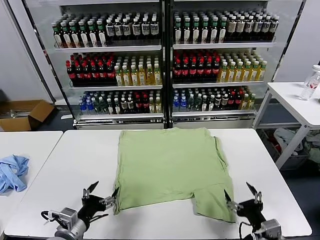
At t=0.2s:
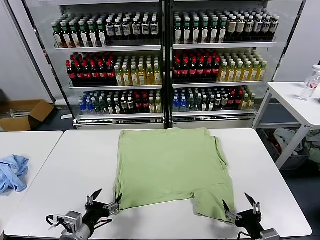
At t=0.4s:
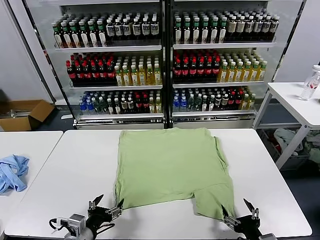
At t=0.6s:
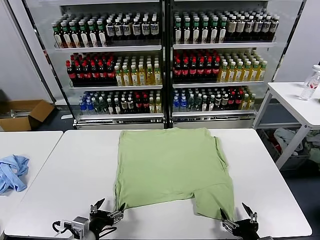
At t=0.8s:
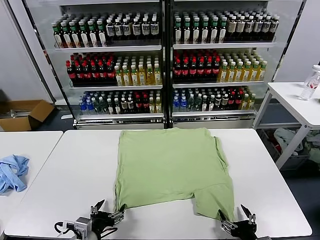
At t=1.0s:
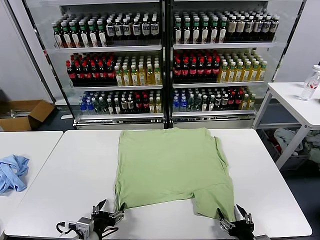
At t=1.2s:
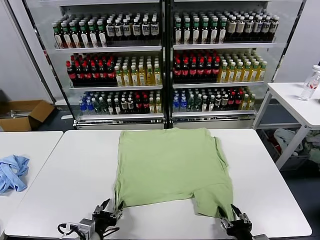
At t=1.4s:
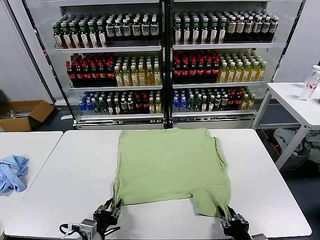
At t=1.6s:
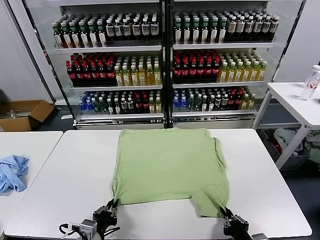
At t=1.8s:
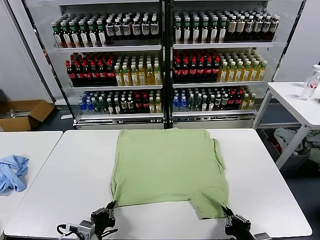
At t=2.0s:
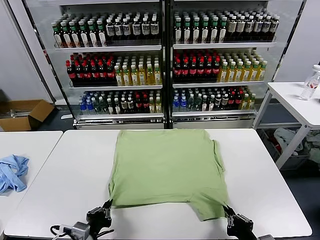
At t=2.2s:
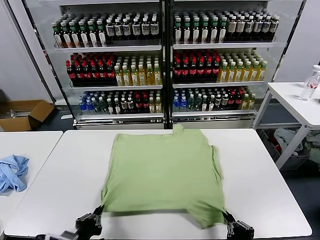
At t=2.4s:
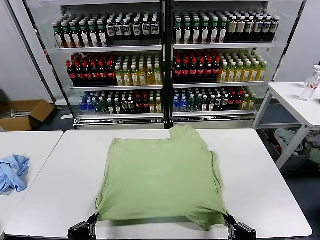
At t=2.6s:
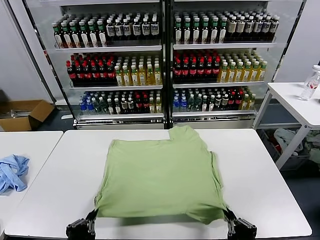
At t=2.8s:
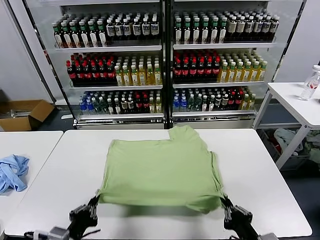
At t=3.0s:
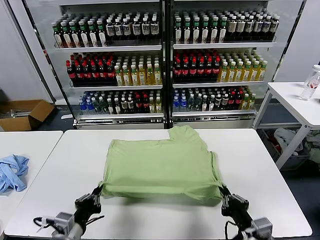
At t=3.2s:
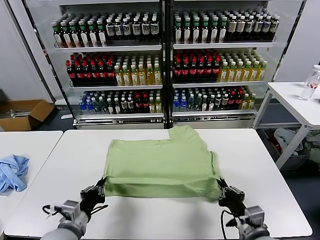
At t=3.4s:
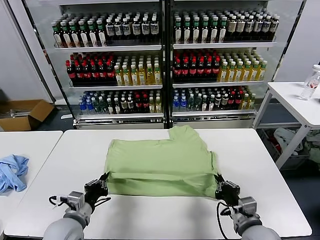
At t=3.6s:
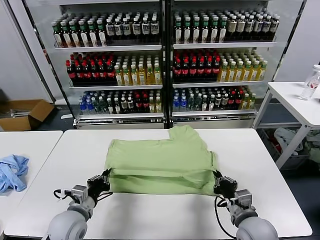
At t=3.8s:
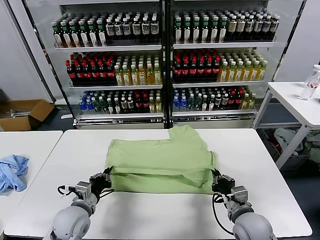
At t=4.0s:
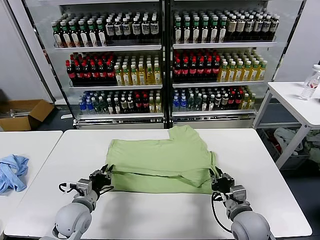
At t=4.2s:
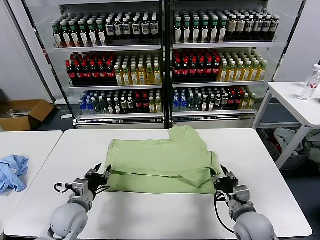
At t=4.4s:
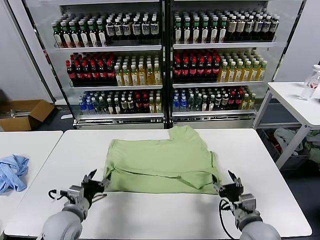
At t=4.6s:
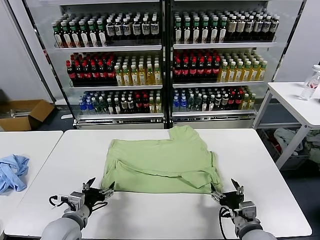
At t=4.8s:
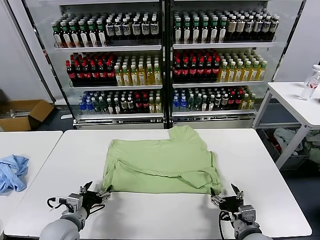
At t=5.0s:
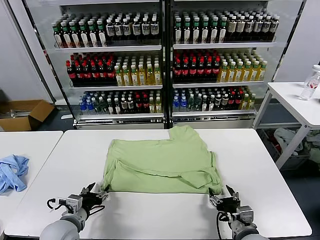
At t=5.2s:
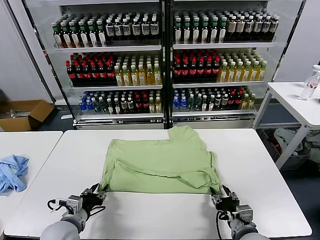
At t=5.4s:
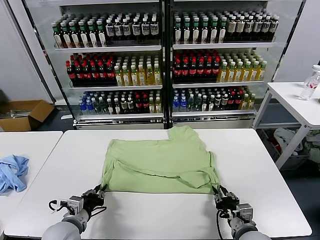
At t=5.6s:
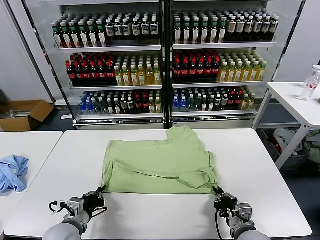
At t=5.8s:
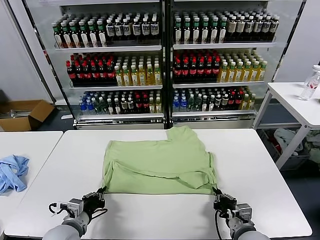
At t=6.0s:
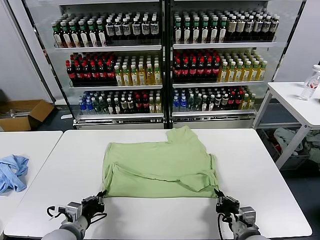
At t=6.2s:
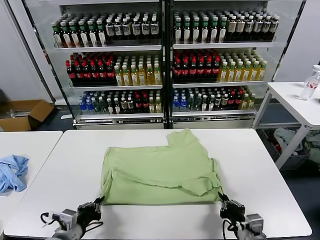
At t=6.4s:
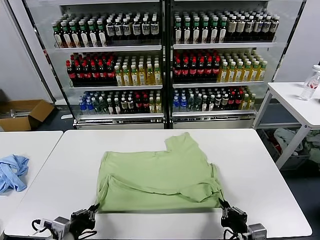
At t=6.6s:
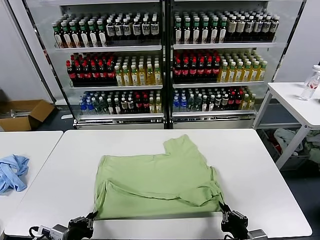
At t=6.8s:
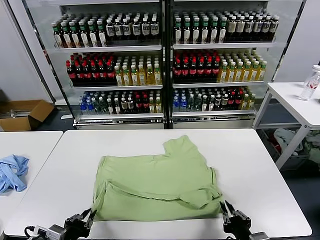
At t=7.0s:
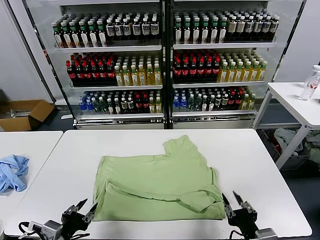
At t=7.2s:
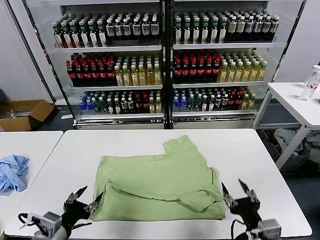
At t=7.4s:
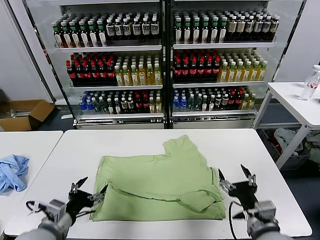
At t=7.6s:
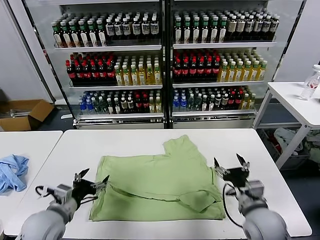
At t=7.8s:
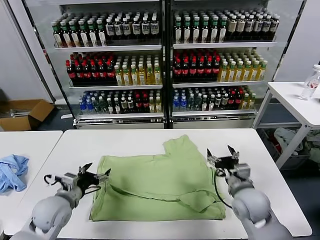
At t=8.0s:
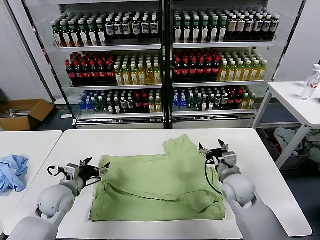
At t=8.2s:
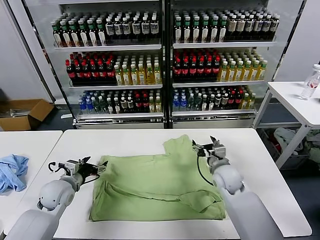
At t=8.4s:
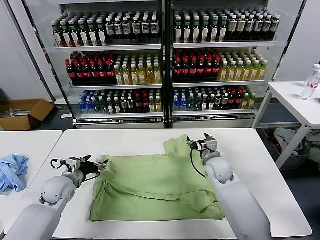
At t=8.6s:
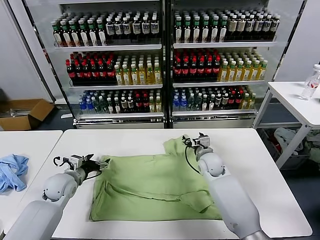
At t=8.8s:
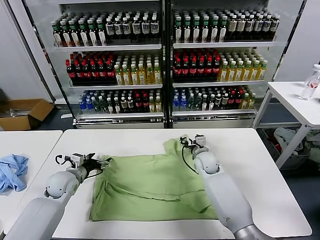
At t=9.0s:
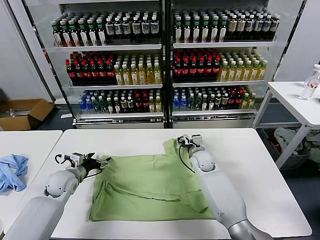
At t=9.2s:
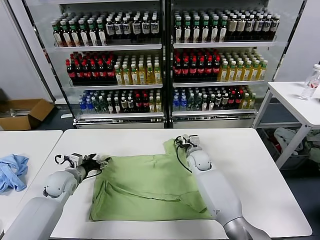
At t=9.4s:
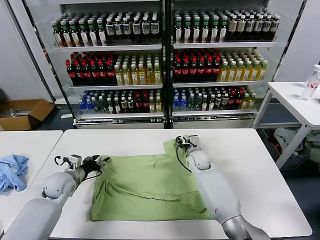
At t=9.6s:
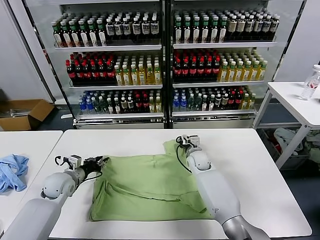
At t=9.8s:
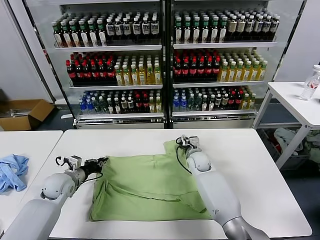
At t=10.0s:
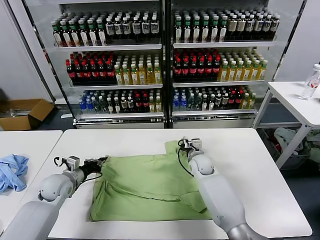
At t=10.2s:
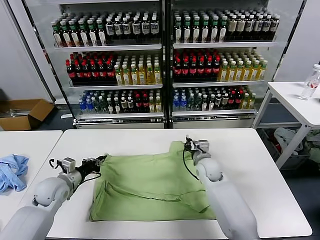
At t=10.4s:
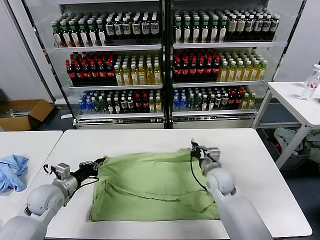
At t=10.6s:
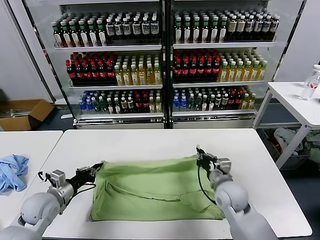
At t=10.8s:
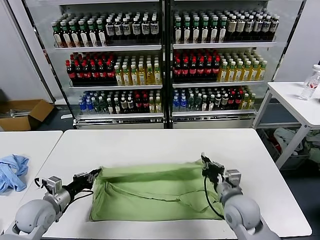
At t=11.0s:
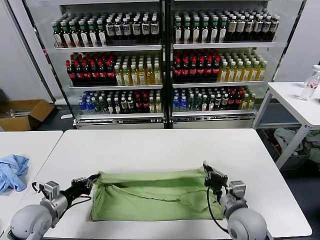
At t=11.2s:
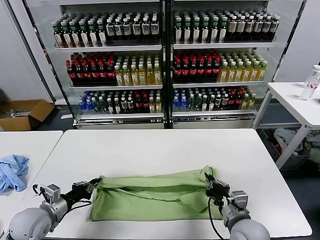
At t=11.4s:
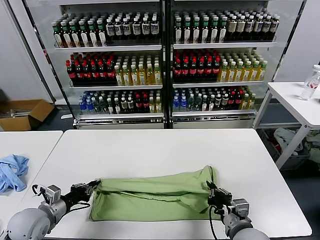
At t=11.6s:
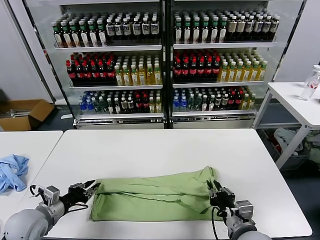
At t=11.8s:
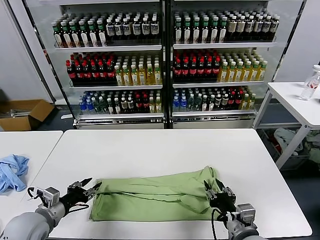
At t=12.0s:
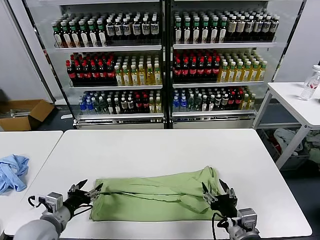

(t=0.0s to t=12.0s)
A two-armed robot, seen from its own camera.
Task of the whole recording: fold and organize the clothes.
Step, t=0.0s - t=1.6s: use both grippers simultaneously to clamp the lower edge of the clothing fabric.
Step, t=1.8s - t=4.2s: use both grippers to drag the lower edge of the fabric forward and fold it over the upper edge.
Step, t=4.4s - t=6.8s: Drag the clothes downward with both gripper.
Step, t=7.0s - t=9.8s: use both grippers simultaneously to clamp the upper edge of the clothing fabric.
Step, t=10.0s - t=11.6s: use both grippers to drag the upper edge of the fabric backward and fold it over the lower edge.
t=1.6s - t=3.0s: The left gripper moves some 5 cm backward and comes back. Meanwhile the right gripper travels upward by approximately 5 cm.
t=3.0s - t=4.4s: The left gripper heads forward, covering some 10 cm, and opens its fingers. Meanwhile the right gripper opens.
t=4.4s - t=6.0s: The left gripper closes up. Meanwhile the right gripper closes.
t=6.0s - t=7.6s: The left gripper travels upward by approximately 5 cm, goes backward and returns, roughly 5 cm each way, and opens. The right gripper shifts approximately 10 cm forward and upward, and opens.
t=7.6s - t=9.0s: The left gripper heads forward, covering some 15 cm. The right gripper shifts some 25 cm forward and to the left.
t=9.0s - t=10.4s: The right gripper shifts approximately 15 cm backward and to the right, and closes its fingers, while the left gripper moves backward, some 5 cm, and closes up.
t=10.4s - t=12.0s: The right gripper travels backward by approximately 20 cm, and opens up, while the left gripper moves backward, about 10 cm, and opens up.

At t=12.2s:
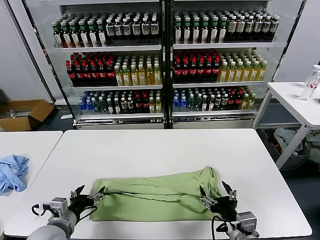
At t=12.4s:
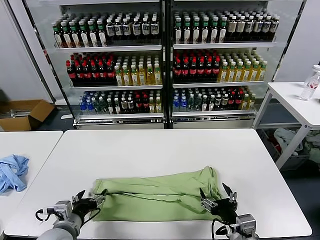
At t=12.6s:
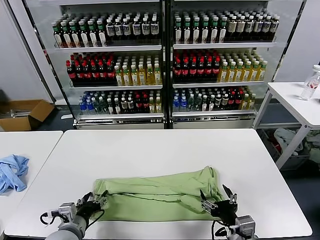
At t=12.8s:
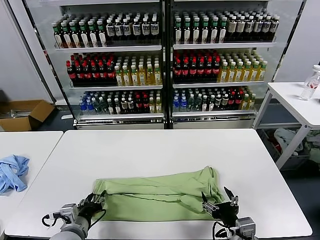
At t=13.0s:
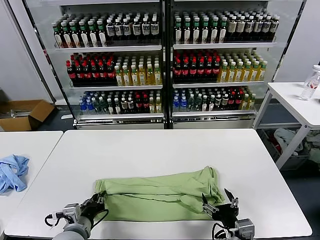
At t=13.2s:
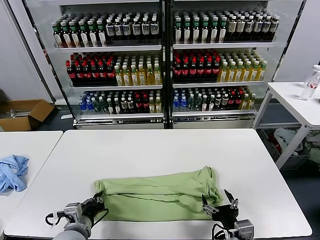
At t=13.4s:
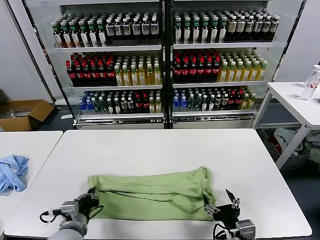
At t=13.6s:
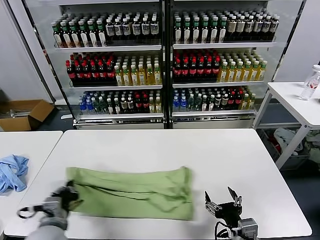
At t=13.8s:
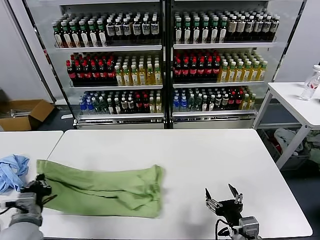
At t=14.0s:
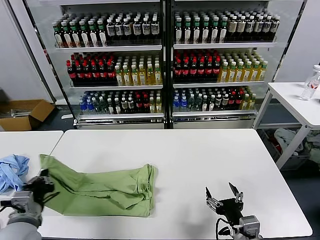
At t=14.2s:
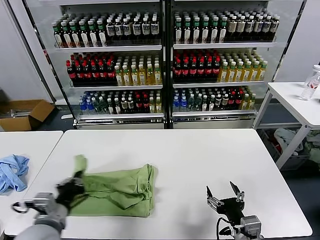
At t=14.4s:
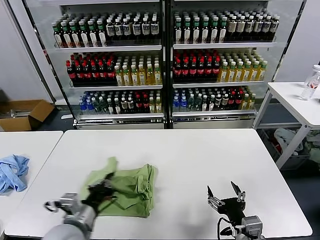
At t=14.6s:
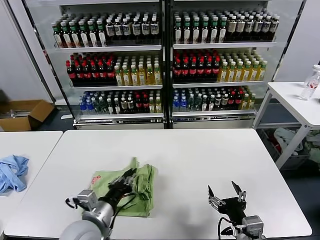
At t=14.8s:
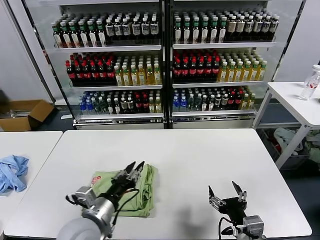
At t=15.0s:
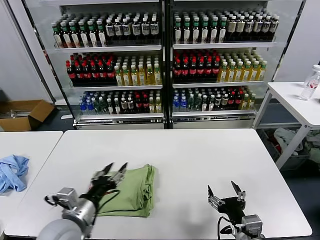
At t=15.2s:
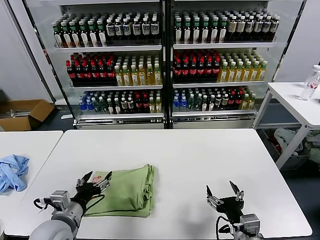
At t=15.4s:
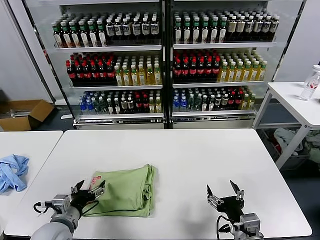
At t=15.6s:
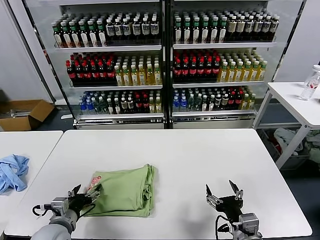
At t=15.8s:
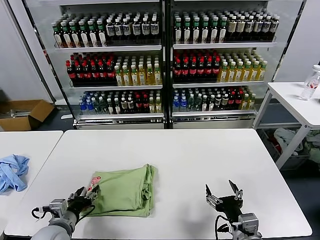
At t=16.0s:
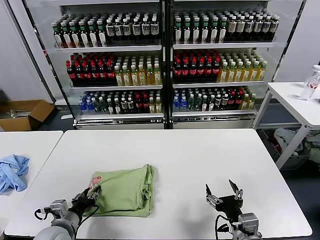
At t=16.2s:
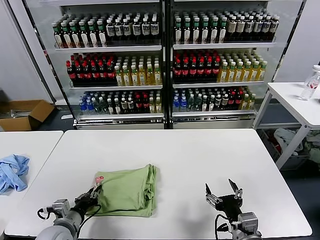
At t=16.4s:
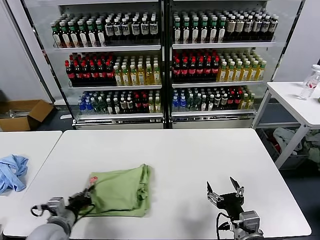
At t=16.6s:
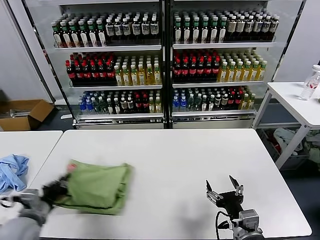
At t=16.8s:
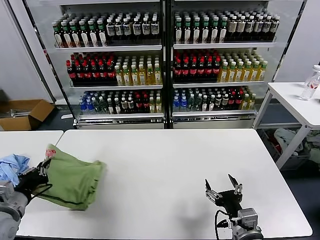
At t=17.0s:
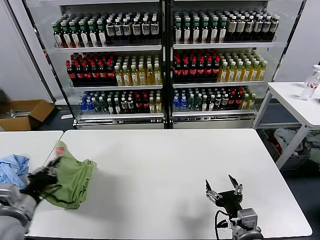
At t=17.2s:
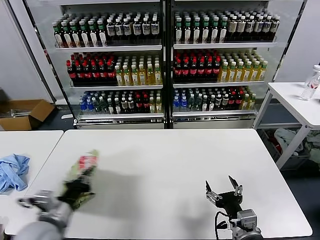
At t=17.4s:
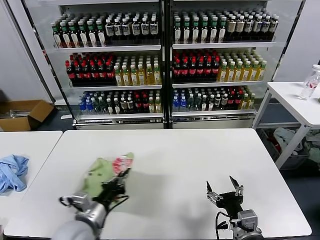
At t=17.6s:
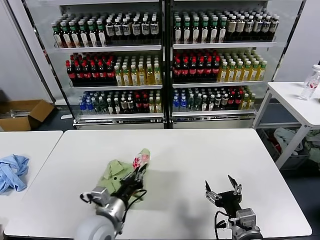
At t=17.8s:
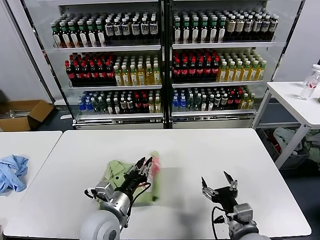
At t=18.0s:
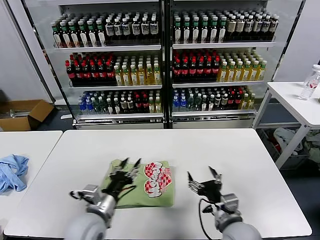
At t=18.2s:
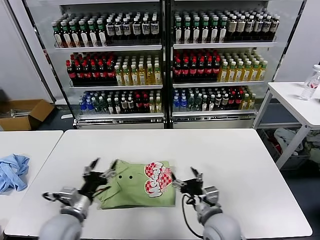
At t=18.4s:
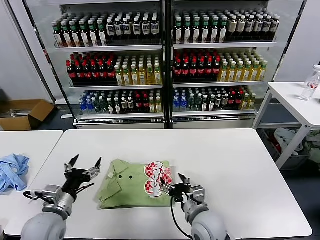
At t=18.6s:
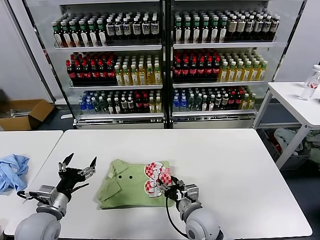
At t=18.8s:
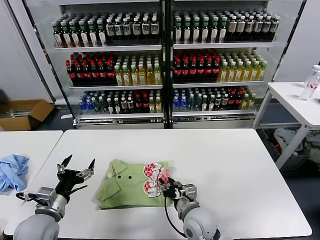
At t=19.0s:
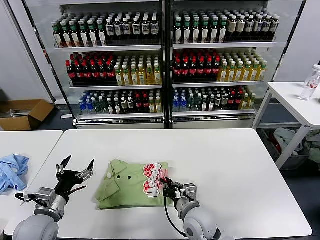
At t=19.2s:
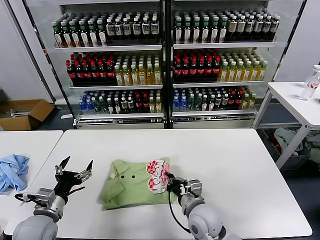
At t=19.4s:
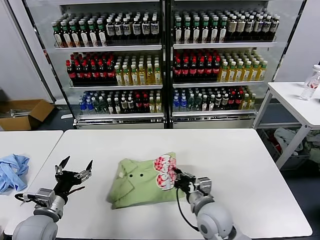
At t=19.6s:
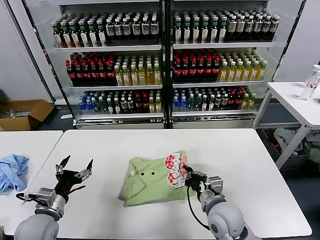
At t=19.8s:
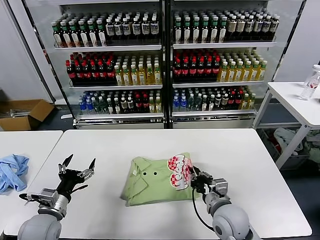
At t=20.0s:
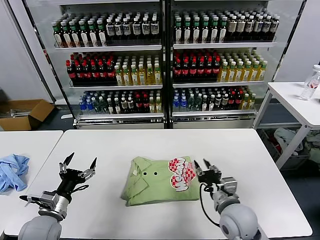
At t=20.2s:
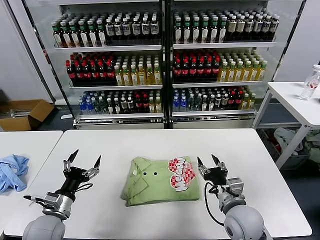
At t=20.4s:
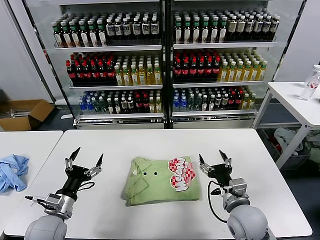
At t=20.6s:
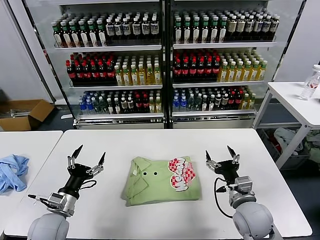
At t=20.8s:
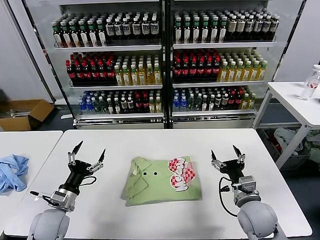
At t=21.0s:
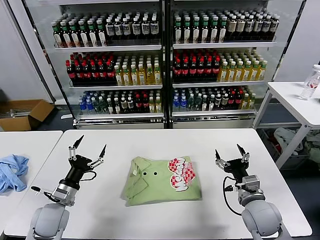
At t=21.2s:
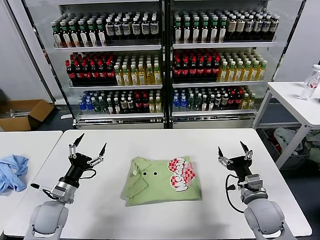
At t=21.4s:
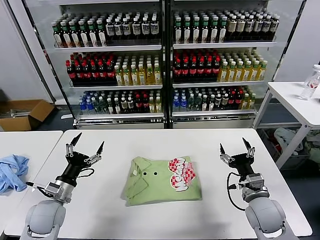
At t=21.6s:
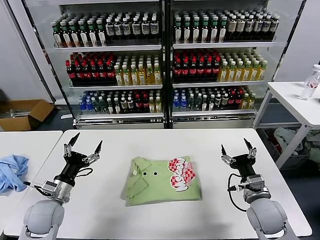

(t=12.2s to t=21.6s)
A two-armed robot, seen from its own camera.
Task of the whole recording: fold and organize the clothes.
Step, t=12.2s - t=13.0s: use the left gripper to clamp the left edge of the fabric.
Step, t=13.2s - t=14.8s: use the left gripper to drag the left edge of the fabric to the left and folds it over the right edge.
Step, t=15.0s - t=17.8s: Flip the folded clothes over with left gripper.
Step, t=18.0s - t=19.8s: Drag the clothes to the center of the table.
t=12.2s - t=13.8s: The left gripper shifts by roughly 5 cm, and closes.
t=13.8s - t=15.4s: The left gripper moves approximately 15 cm to the right and comes back, and opens up.
t=15.4s - t=17.0s: The left gripper goes some 15 cm upward and to the left, and closes up.
t=17.0s - t=18.4s: The left gripper travels downward by roughly 10 cm, goes to the right and returns, roughly 20 cm each way, and opens. Meanwhile the right gripper shifts roughly 15 cm to the left and forward.
t=18.4s - t=20.0s: The right gripper shifts roughly 5 cm to the right, and closes its fingers.
t=20.0s - t=21.6s: The right gripper travels to the right by roughly 10 cm, and opens.
